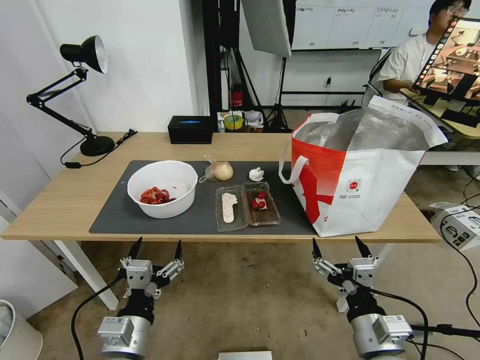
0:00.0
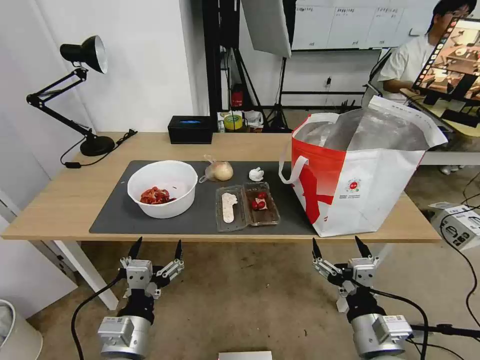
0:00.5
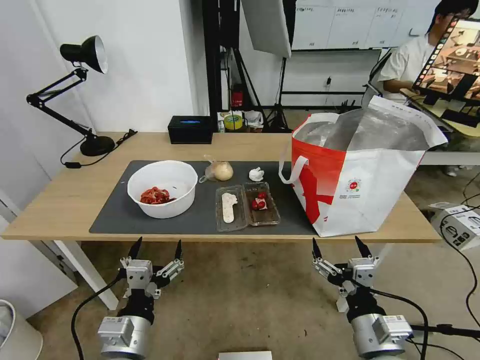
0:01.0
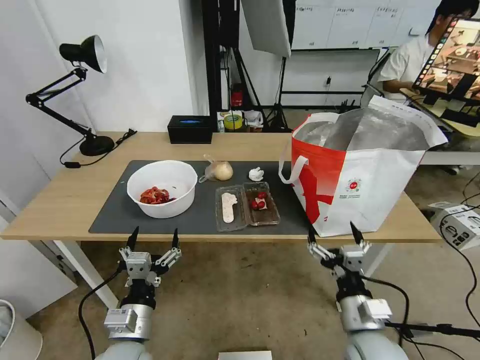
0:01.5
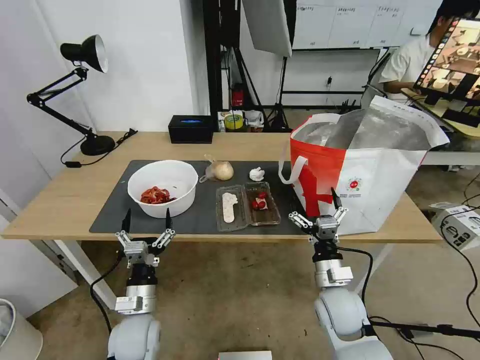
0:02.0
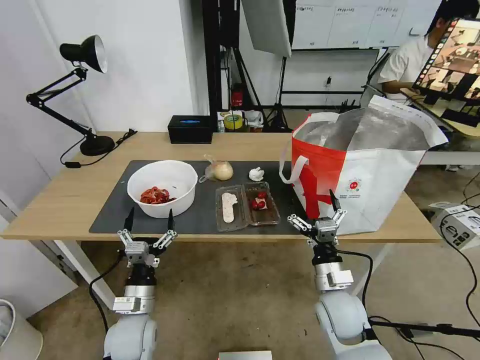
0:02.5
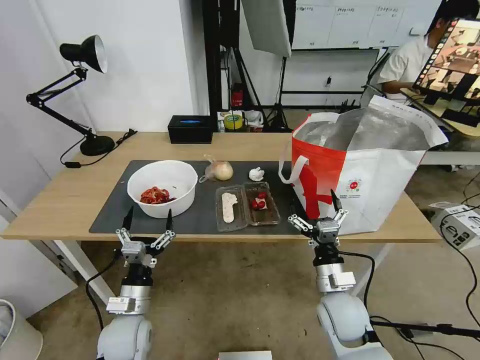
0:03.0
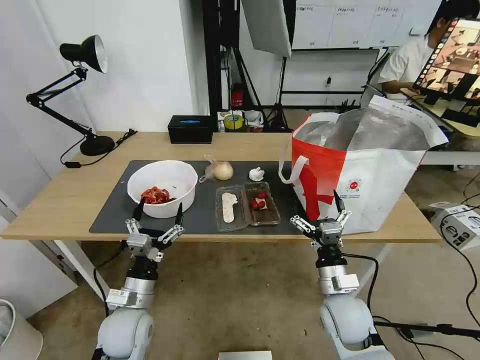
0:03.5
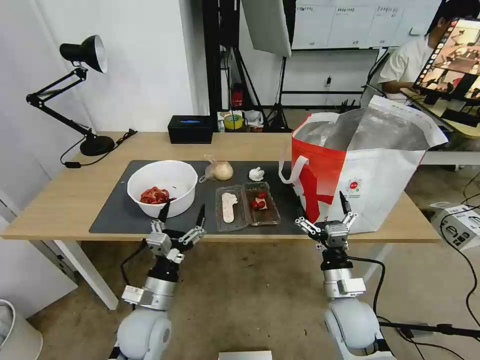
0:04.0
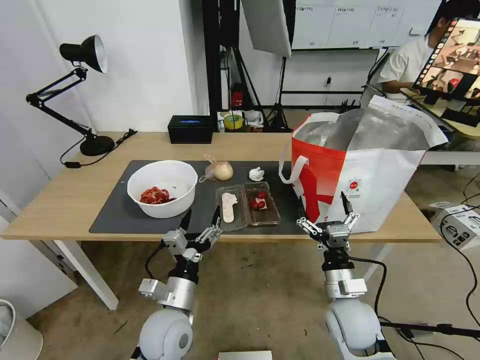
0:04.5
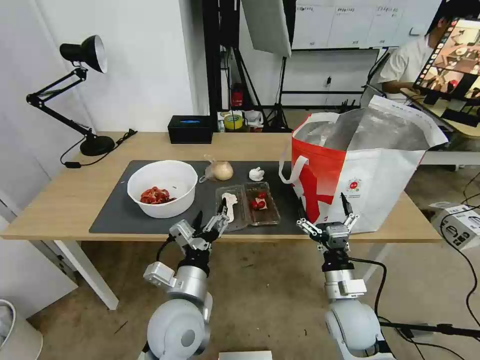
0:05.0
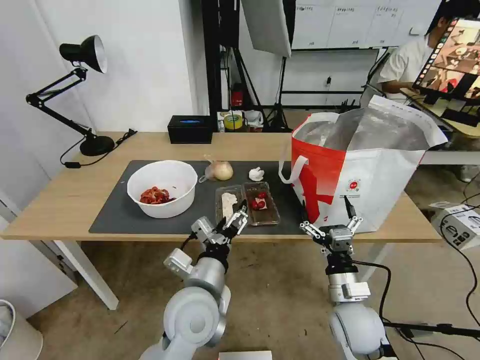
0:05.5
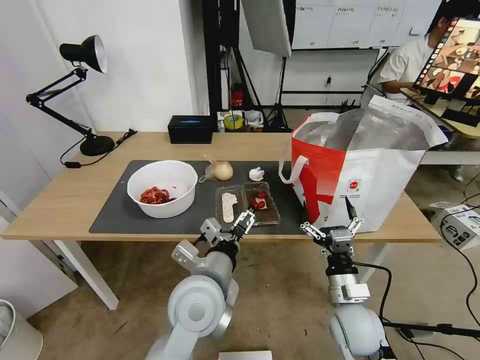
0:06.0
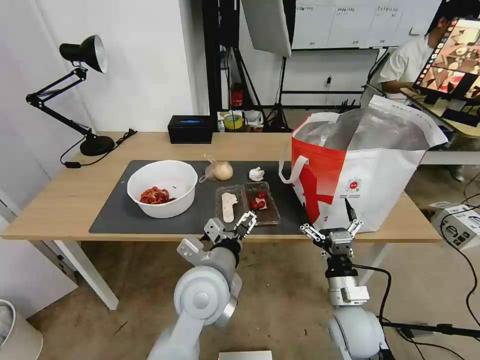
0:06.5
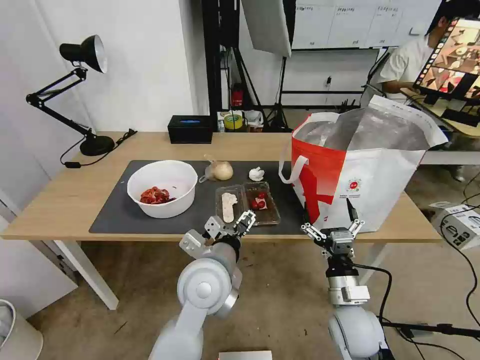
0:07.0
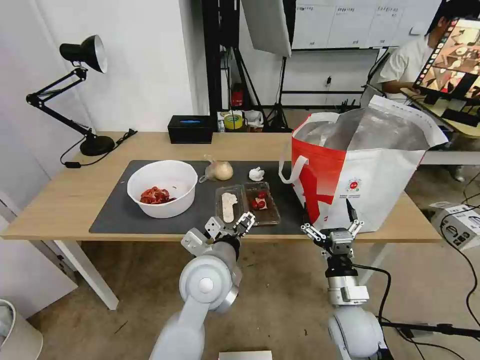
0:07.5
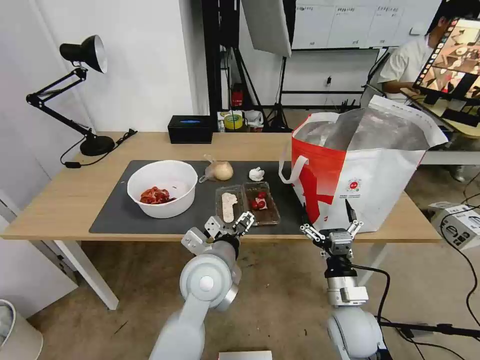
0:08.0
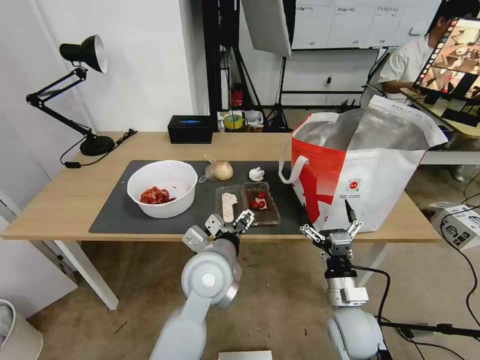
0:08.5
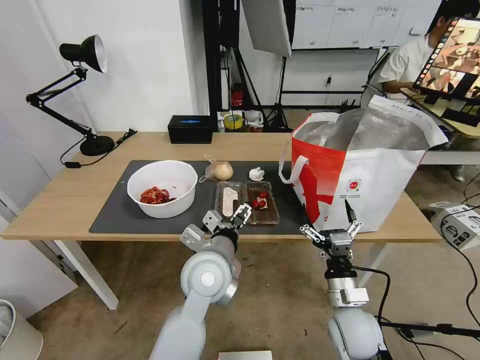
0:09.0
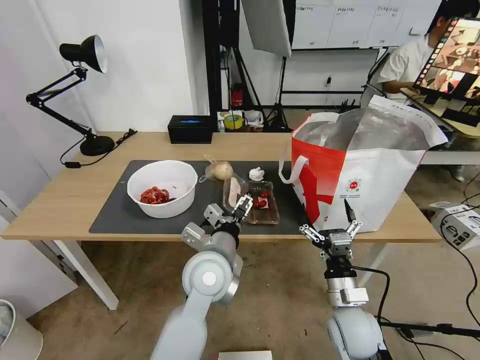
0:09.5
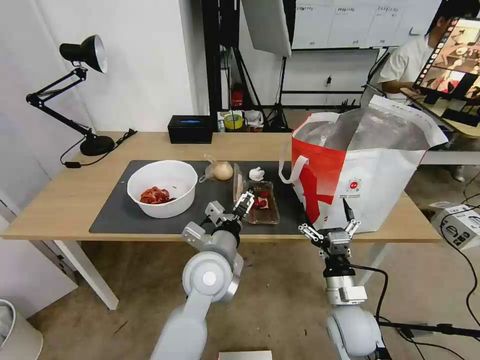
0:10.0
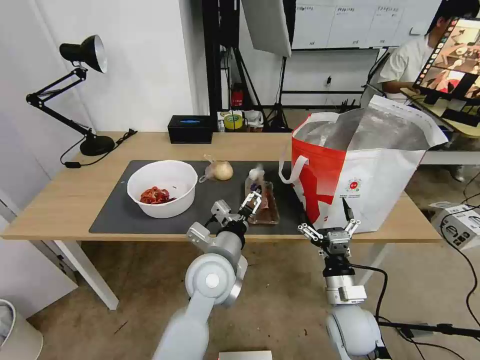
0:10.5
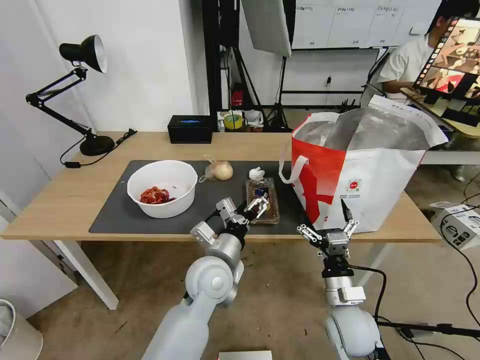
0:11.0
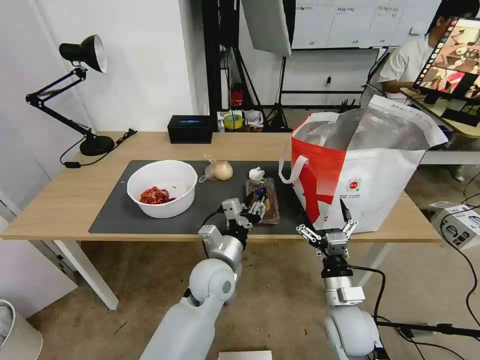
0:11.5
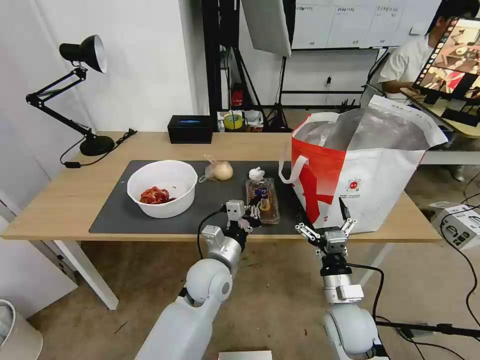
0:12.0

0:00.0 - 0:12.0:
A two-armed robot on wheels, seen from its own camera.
Task of the whole recording: Pick up the trash from the table and place it into the takeout bag.
0:04.0 - 0:06.0: The left gripper moves upward and to the right, approximately 20 cm.
0:06.0 - 0:10.0: The grippers move only a little.
0:10.0 - 0:12.0: The left gripper moves downward, about 5 cm, and closes up.

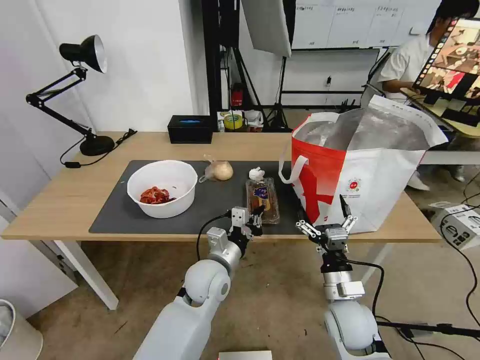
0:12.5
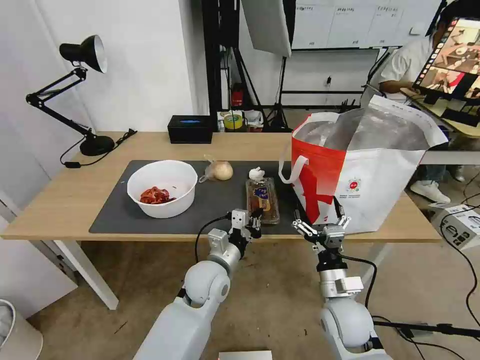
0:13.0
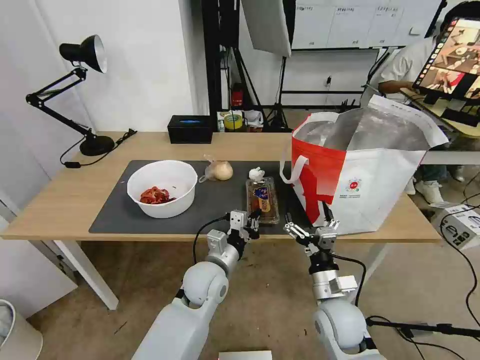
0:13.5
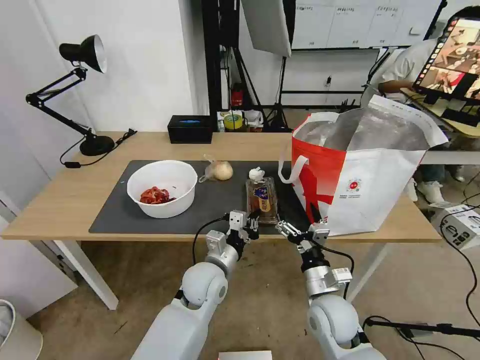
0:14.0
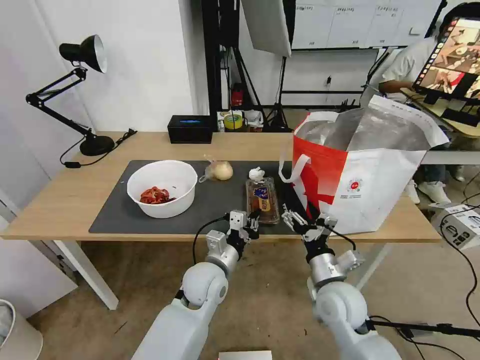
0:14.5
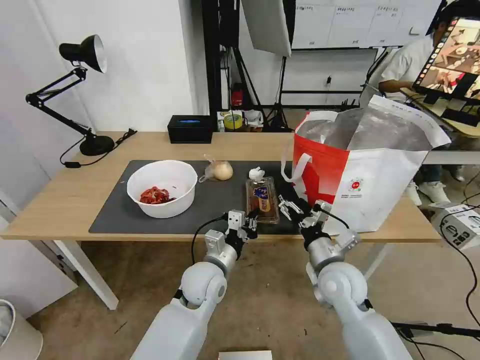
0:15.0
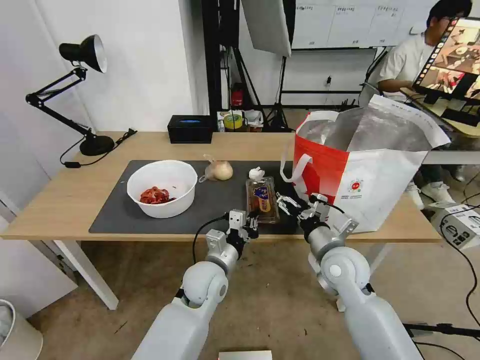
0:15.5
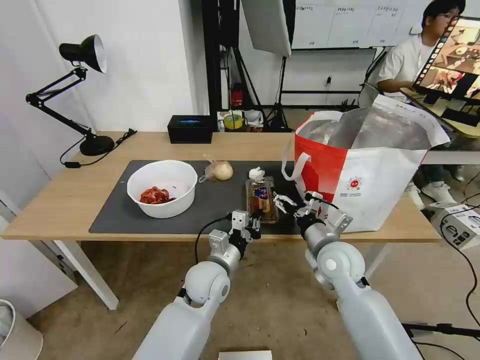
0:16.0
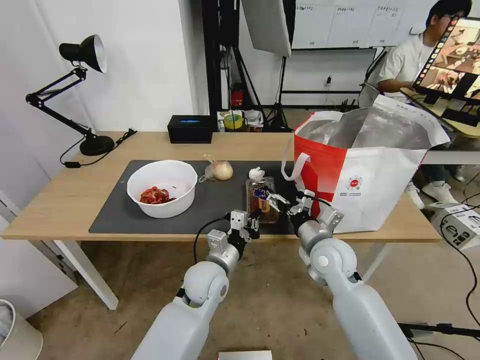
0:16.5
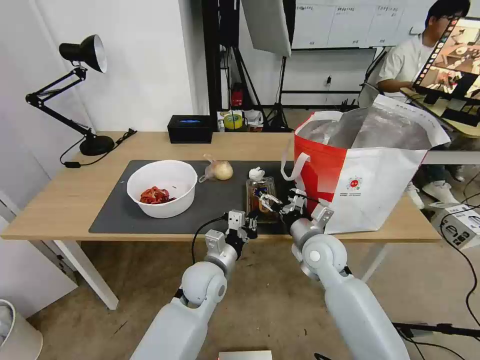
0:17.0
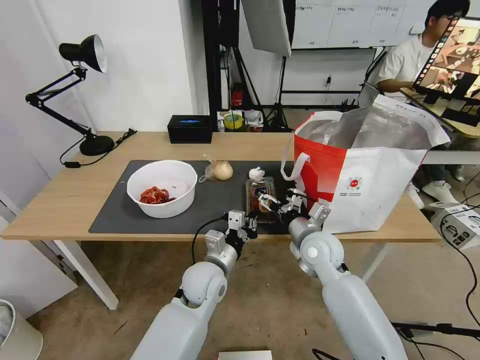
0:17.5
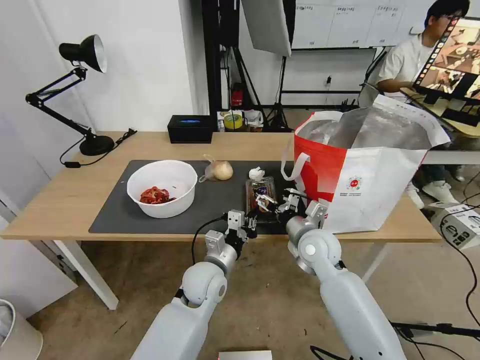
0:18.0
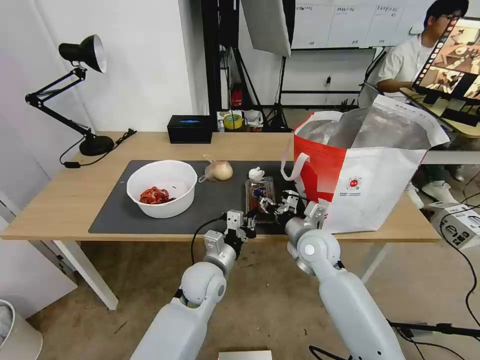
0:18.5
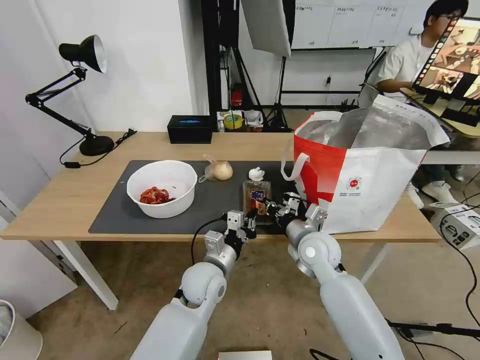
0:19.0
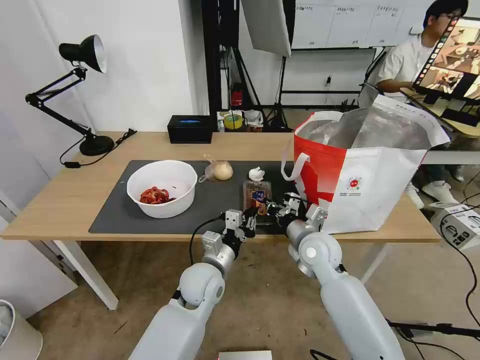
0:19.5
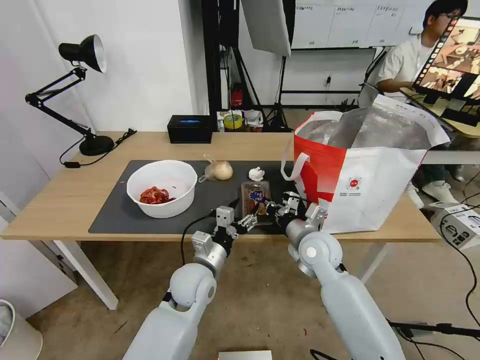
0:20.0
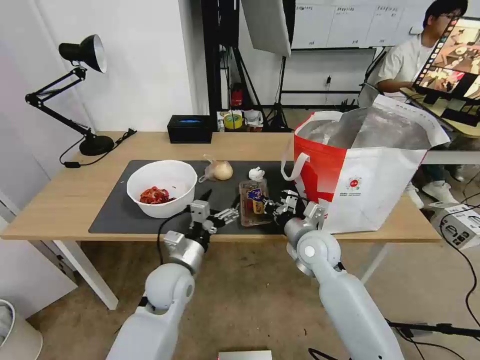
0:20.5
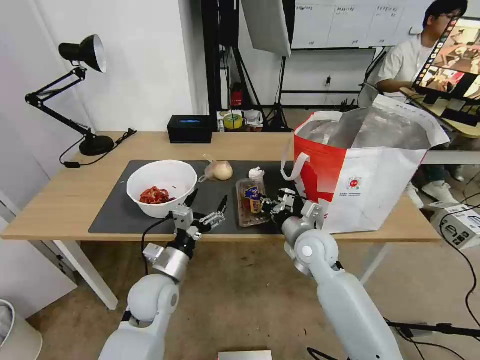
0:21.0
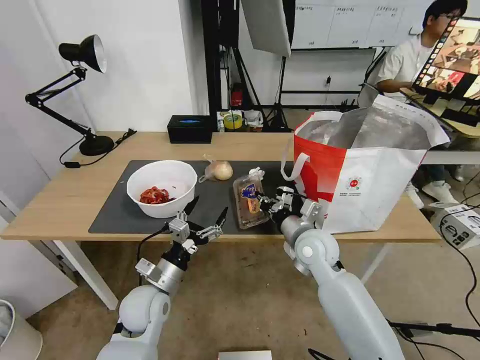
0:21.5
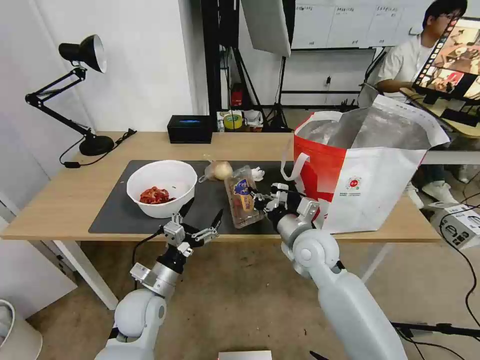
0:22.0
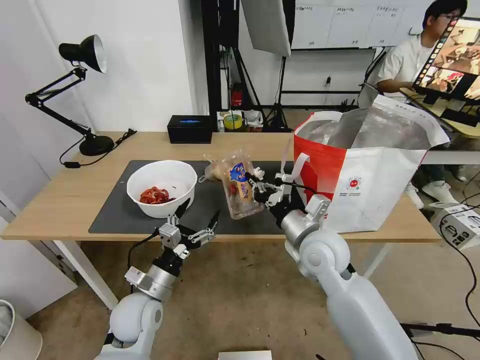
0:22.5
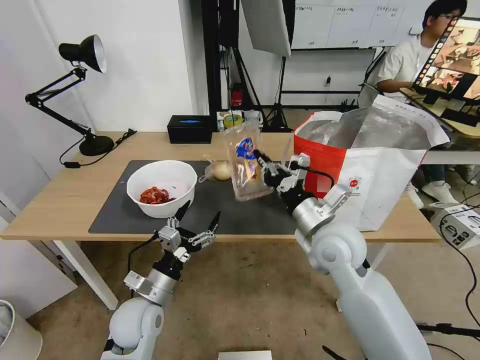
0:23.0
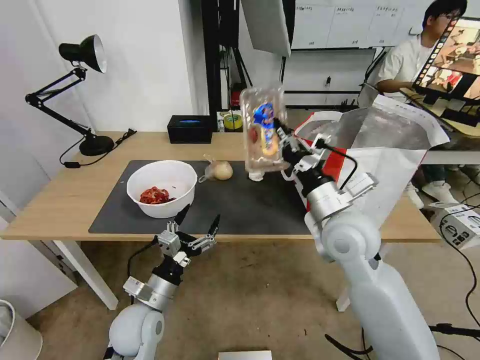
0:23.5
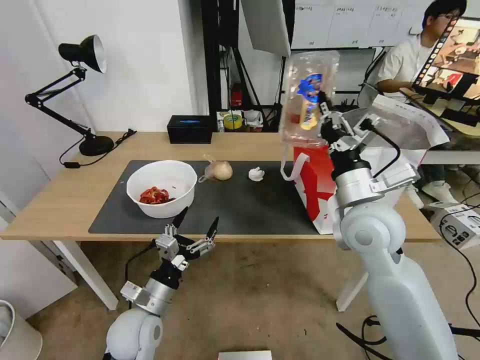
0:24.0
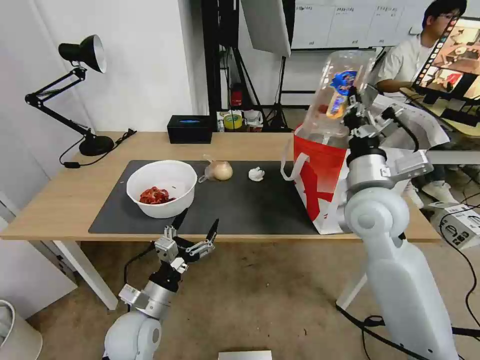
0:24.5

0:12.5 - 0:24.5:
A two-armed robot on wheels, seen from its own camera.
Task of the whole recording: Pick up the trash from the table and place it into the takeout bag.
0:14.5 - 0:16.5: The right gripper goes about 10 cm forward.
0:16.5 - 0:18.5: The right gripper closes up.
0:18.5 - 0:20.5: The right gripper closes its fingers. The left gripper heads to the left, covering roughly 5 cm, and opens up.
0:20.5 - 0:22.5: The right gripper is displaced upward by some 5 cm. Meanwhile the left gripper heads to the left and backward, covering some 10 cm.
0:22.5 - 0:24.5: The right gripper moves upward and to the right, approximately 15 cm.

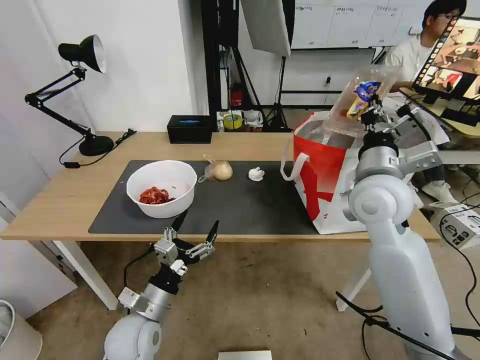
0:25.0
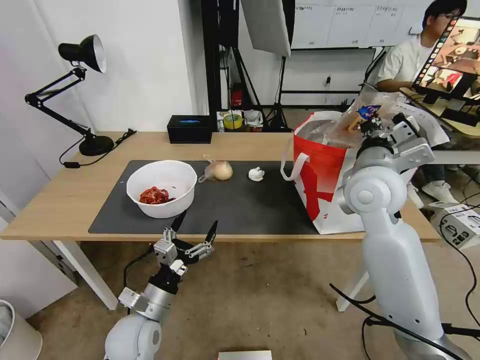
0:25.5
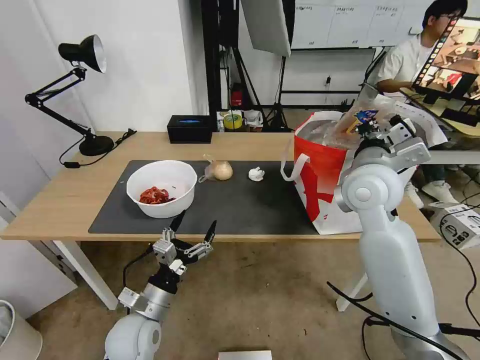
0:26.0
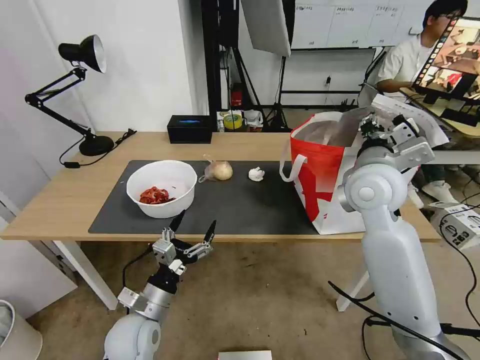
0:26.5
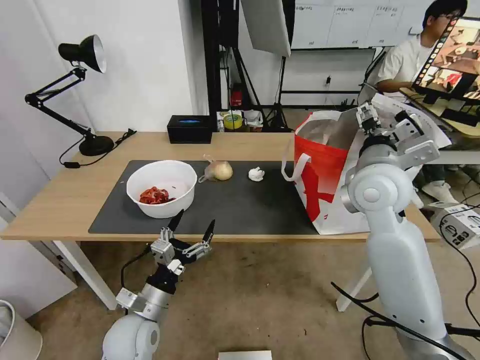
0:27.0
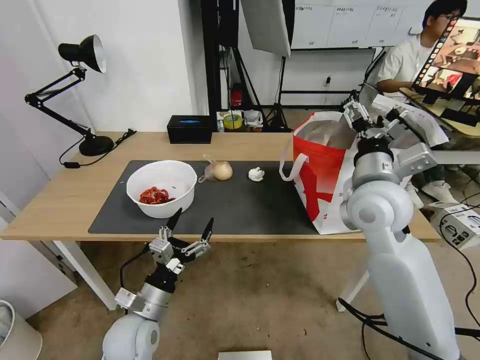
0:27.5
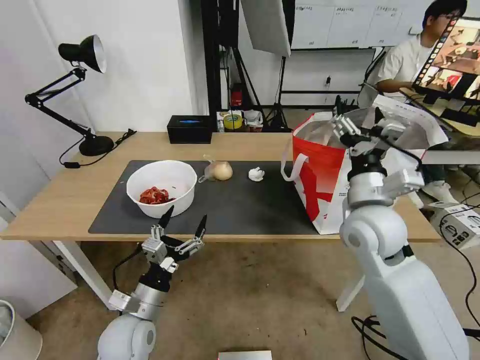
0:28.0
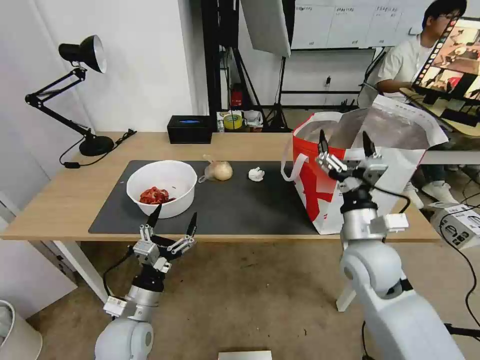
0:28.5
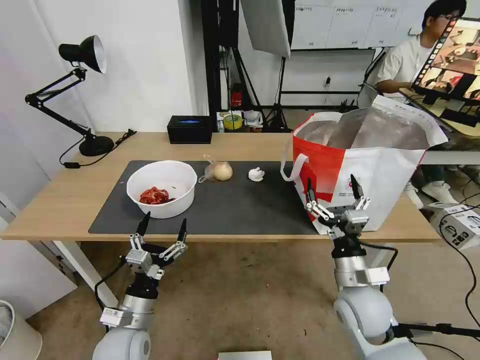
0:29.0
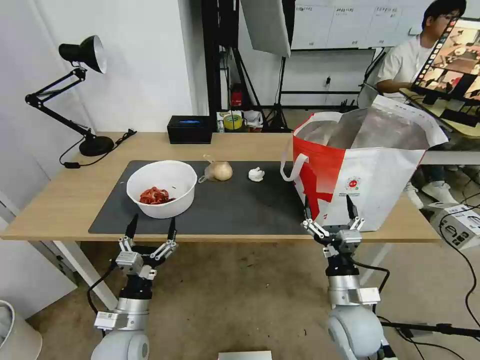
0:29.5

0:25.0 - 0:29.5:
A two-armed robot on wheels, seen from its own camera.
Task of the whole recording: Pick up the trash from the table and place it into the takeout bag.
0:25.0 - 0:27.0: The right gripper opens up.
0:27.0 - 0:29.5: The right gripper travels downward and backward by about 30 cm.
